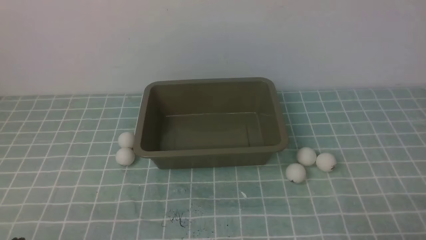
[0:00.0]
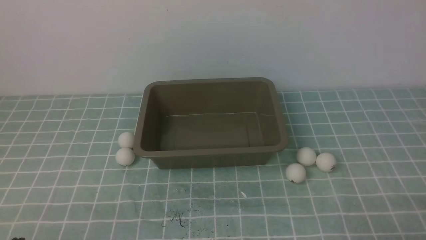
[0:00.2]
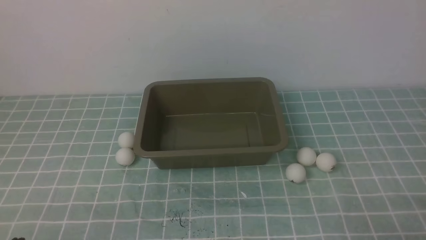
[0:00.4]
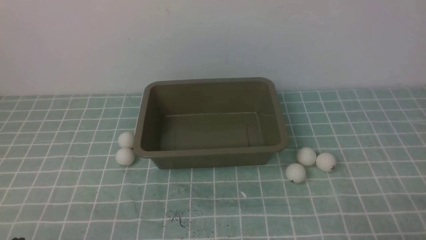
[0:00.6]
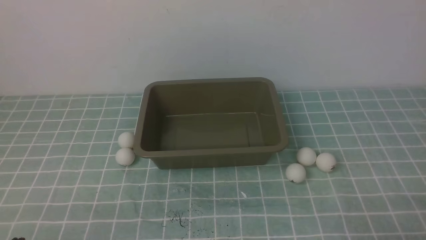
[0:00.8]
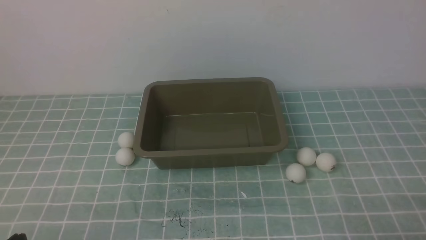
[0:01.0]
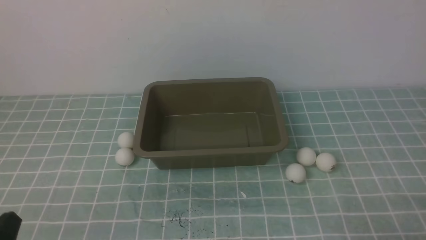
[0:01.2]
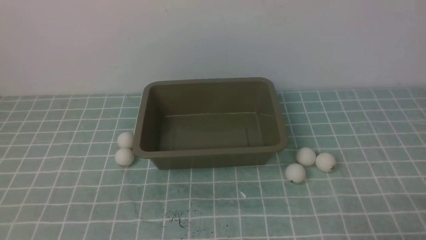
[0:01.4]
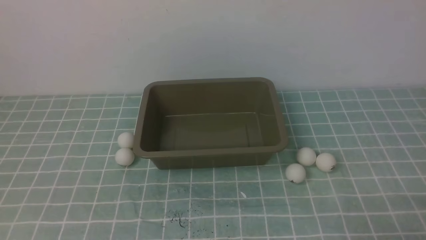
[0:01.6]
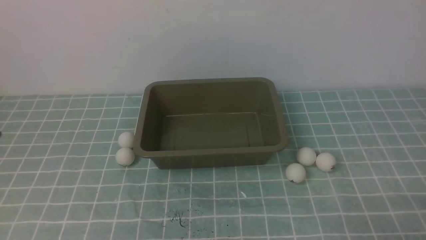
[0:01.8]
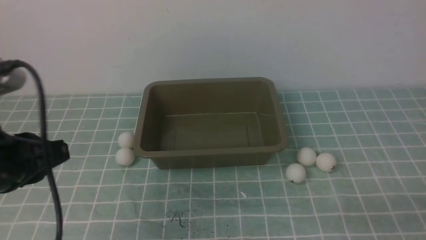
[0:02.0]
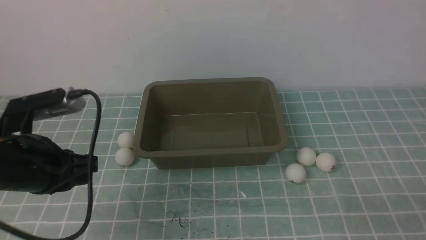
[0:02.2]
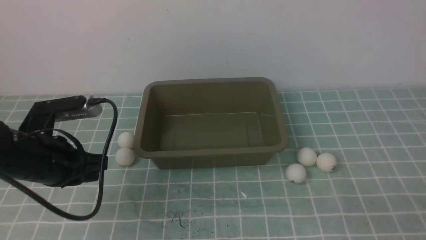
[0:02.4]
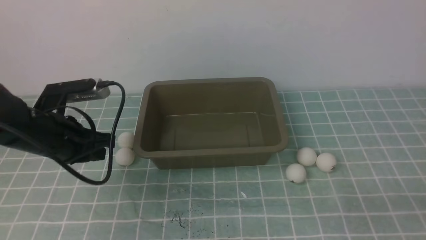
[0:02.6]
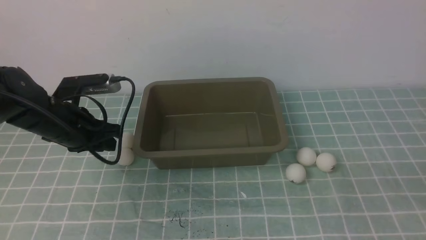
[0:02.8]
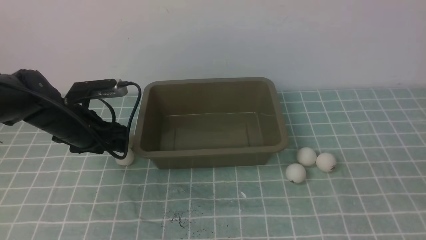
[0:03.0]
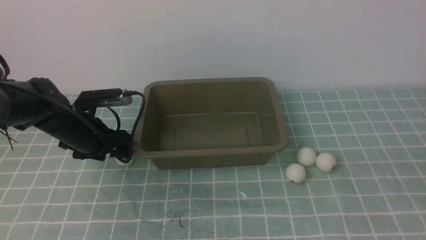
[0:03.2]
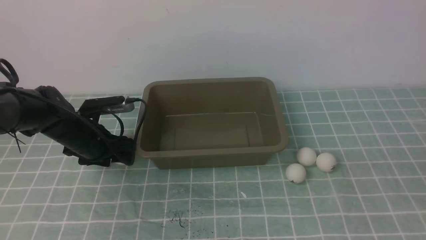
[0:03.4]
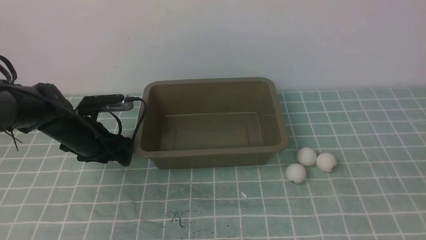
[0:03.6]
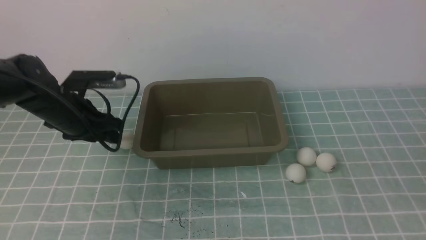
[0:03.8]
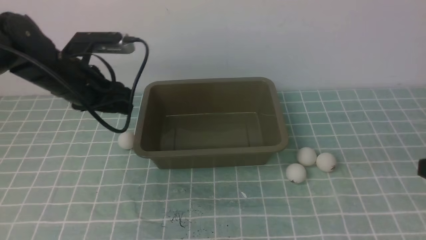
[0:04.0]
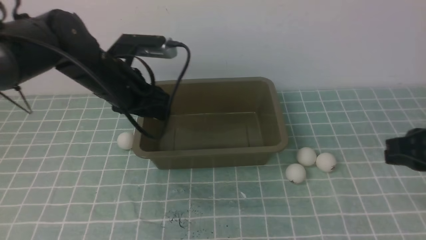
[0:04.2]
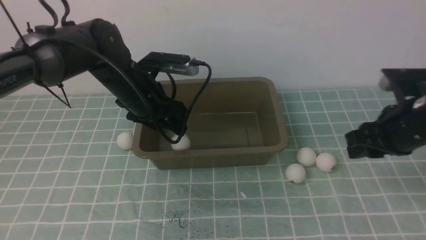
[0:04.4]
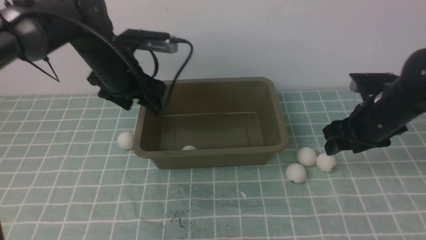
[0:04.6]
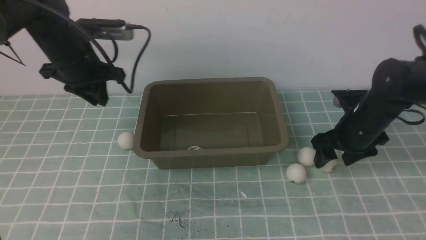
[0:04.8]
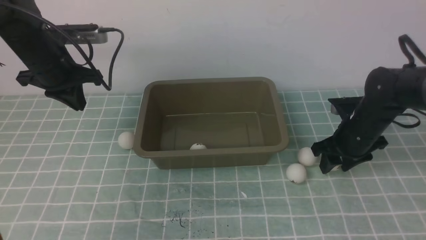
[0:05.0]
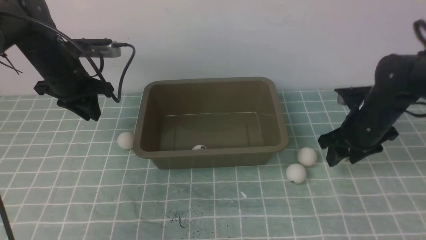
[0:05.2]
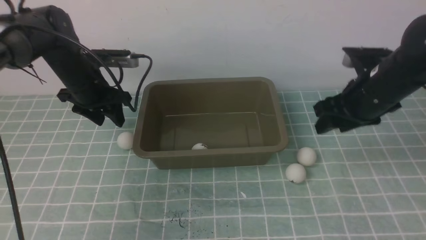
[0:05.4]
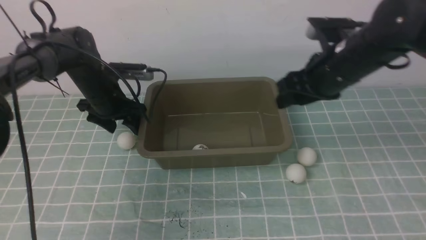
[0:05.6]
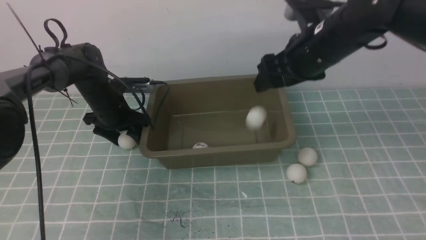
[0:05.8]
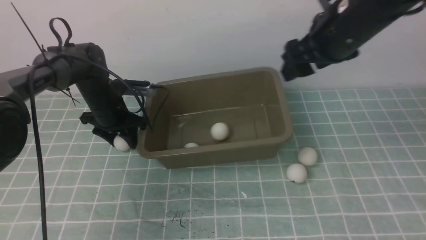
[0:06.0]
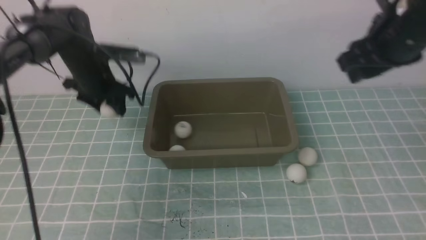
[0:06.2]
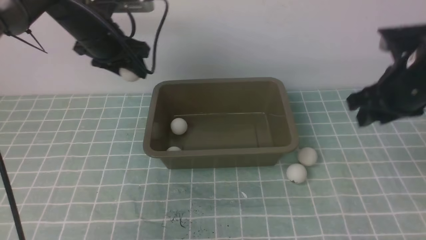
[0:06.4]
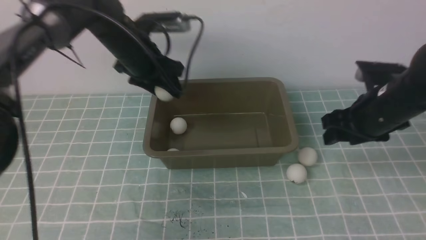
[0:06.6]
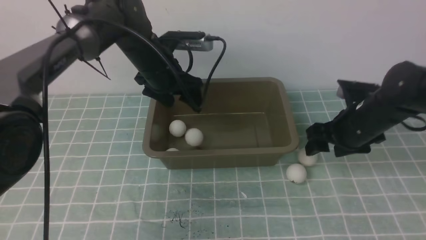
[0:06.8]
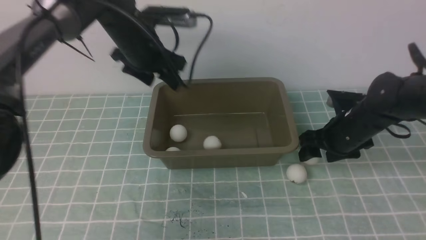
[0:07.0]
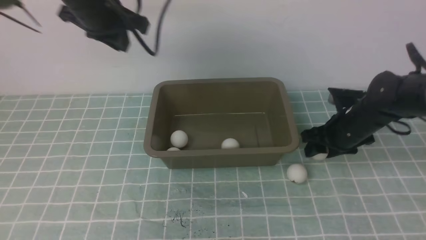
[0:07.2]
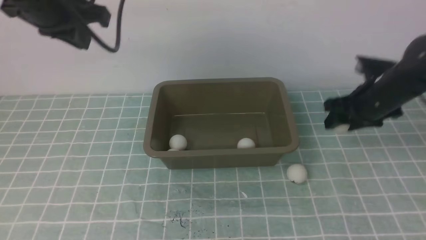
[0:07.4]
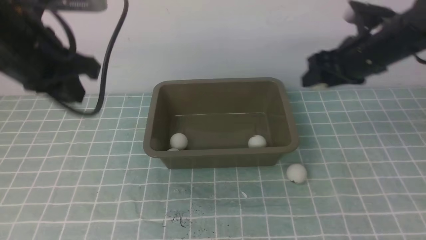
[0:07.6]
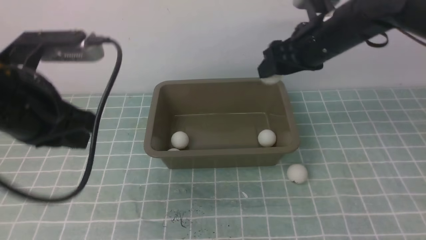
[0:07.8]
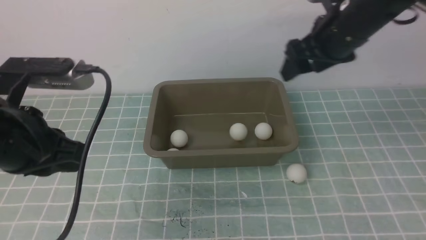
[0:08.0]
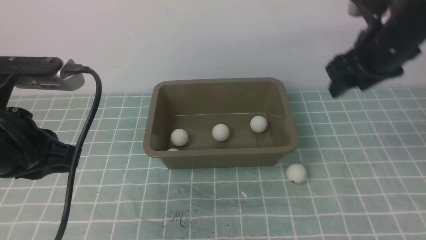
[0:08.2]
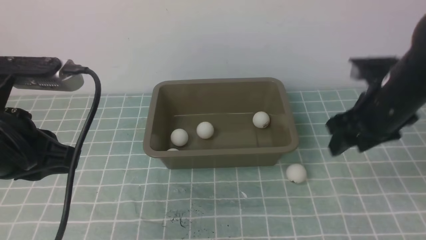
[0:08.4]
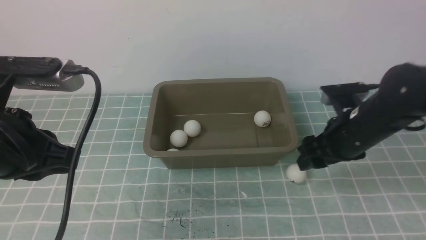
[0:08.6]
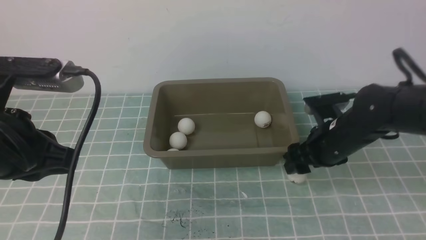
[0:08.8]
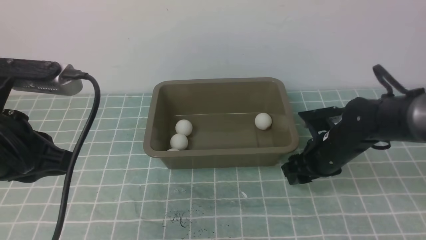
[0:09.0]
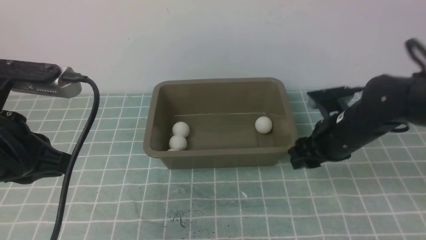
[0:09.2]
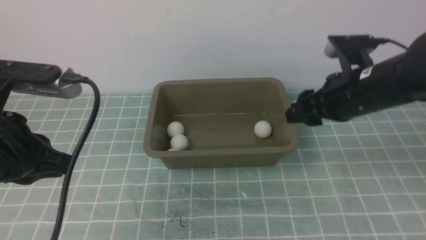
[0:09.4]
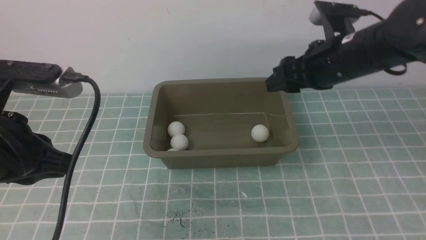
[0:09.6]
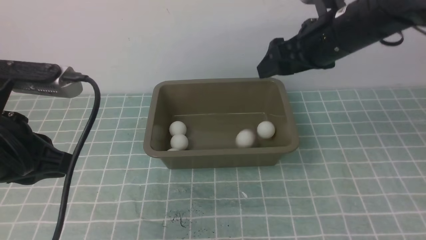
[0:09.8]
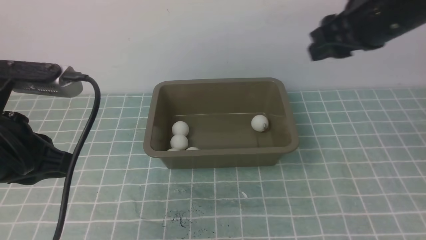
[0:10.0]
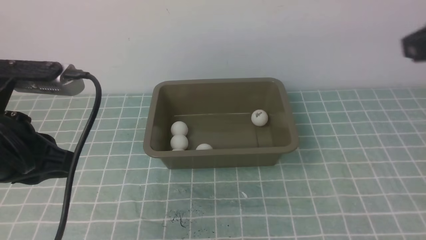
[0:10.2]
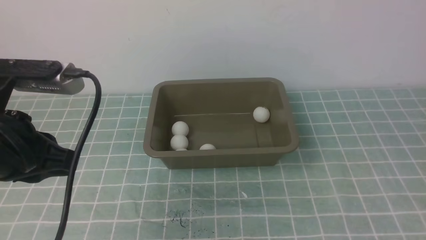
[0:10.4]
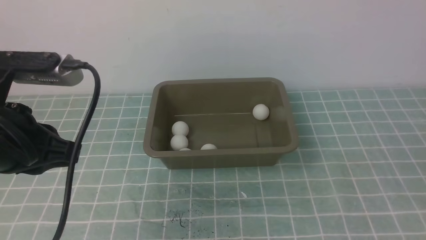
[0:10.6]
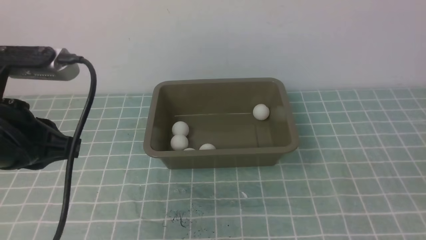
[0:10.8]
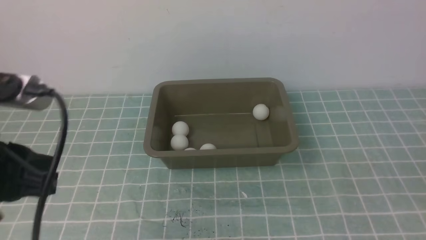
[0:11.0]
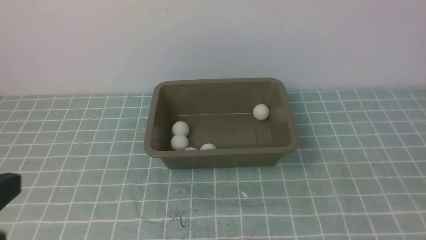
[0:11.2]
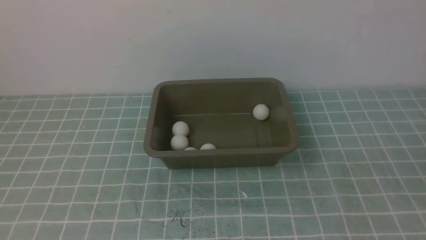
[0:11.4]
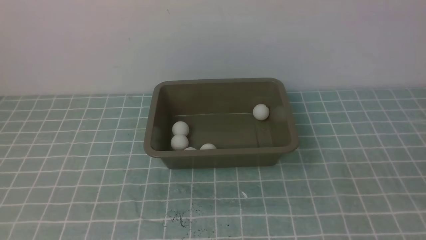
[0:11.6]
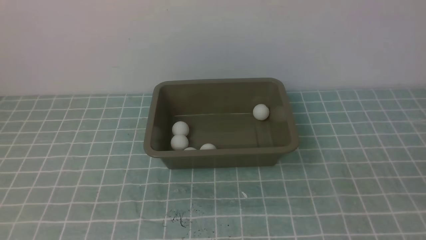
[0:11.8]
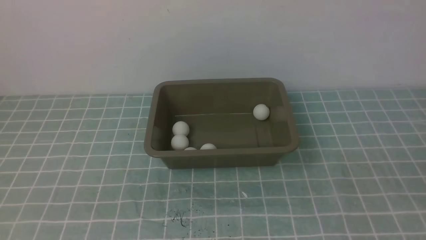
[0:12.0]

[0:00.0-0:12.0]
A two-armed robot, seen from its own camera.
Step, 0:00.0 to 0:03.6: use the left arm to clamp the table tennis ball closest to it.
Step, 0:04.0 to 0:04.4: use the left arm to put the table tennis ball into the box.
Step, 0:04.8 to 0:05.2: use the right arm to clamp the table tennis ball closest to it.
Step, 0:05.4 to 0:05.6: use the right arm to put the table tennis ball into the box.
Step, 0:05.8 to 0:06.4: use the left arm to clamp the table tennis ball closest to it.
Step, 0:07.2 to 0:07.6: use the right arm to clamp the table tennis ball closest to it.
Step, 0:07.8 to 0:08.2: use the right arm to put the table tennis ball into the box.
Step, 0:08.4 to 0:09.2: use the right arm to clamp the table tennis ball closest to it.
Step, 0:09.4 to 0:09.6: use the right arm to put the table tennis ball into the box.
0:01.6 to 0:03.0: The left gripper shifts approximately 30 cm forward, and opens its fingers.
0:03.0 to 0:04.4: The right gripper is displaced forward by about 20 cm, and opens its fingers. The left gripper is displaced to the right and upward by some 10 cm.
0:04.4 to 0:06.0: The left gripper heads downward, to the left and forward, covering about 15 cm, and closes, then reopens; the right gripper moves upward, to the left and forward, some 15 cm, and opens its fingers.
0:06.0 to 0:07.6: The left gripper is displaced upward and backward by about 25 cm, and closes up. Meanwhile the right gripper moves about 20 cm downward and comes back.
0:07.6 to 0:09.0: The right gripper heads downward and backward, covering some 15 cm. The left gripper goes about 10 cm backward.
0:09.0 to 0:10.4: The right gripper shifts roughly 35 cm backward, upward and to the right, and closes its fingers.
0:10.4 to 0:12.0: The left gripper travels backward by roughly 15 cm; the right gripper moves downward, about 10 cm.

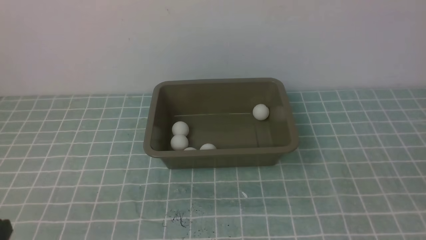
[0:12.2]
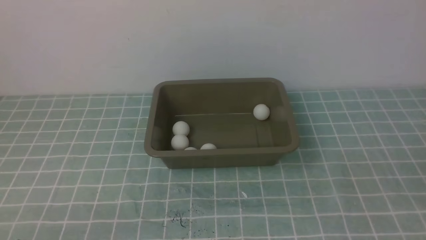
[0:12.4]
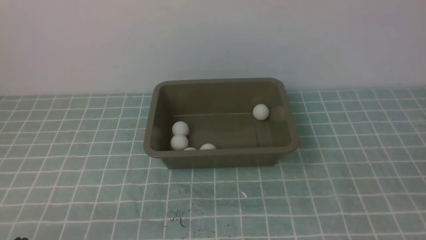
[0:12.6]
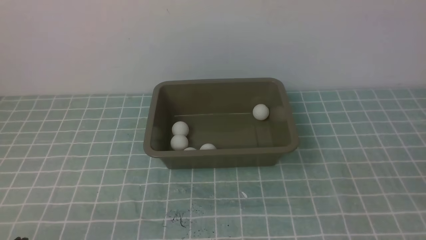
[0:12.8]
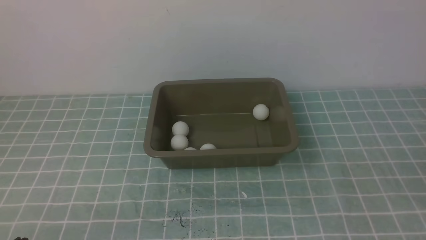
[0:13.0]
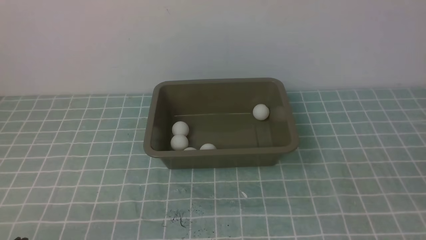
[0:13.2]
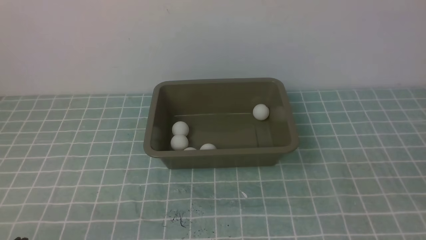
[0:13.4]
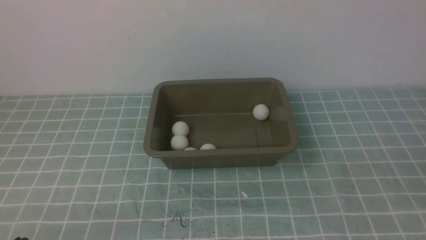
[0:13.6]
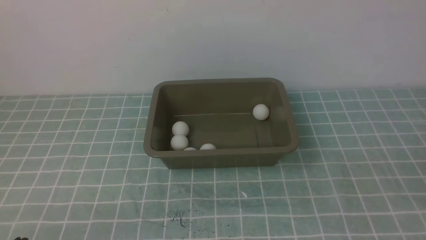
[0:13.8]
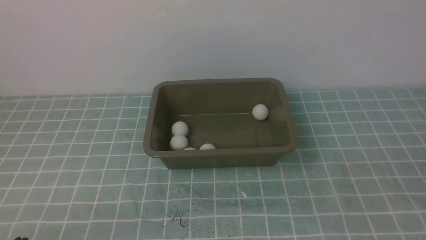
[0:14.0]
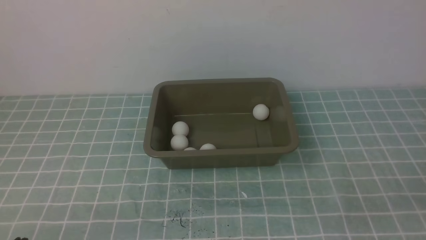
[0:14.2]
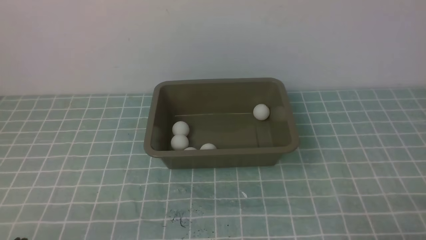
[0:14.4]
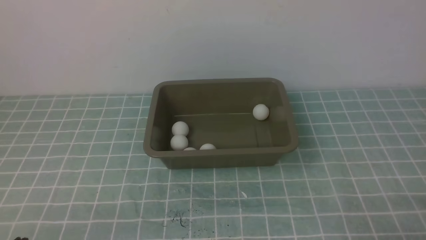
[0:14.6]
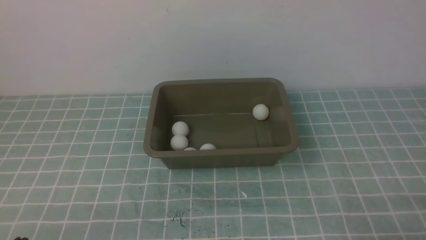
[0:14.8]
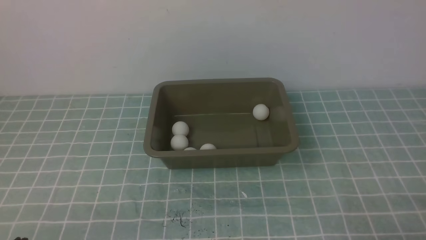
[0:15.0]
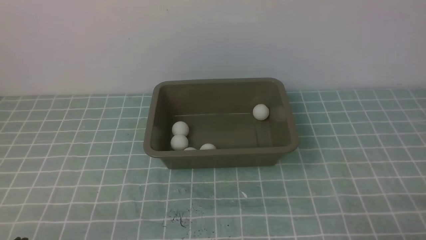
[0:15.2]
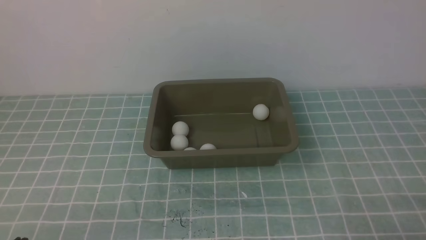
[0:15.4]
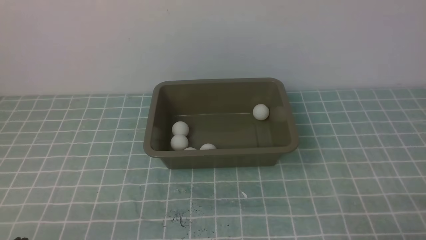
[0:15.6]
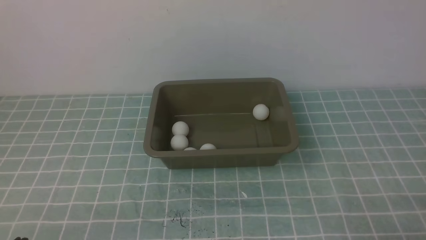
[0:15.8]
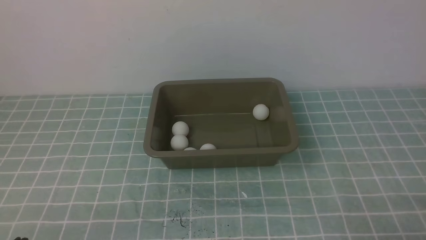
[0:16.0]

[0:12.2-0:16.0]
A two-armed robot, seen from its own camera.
0:14.8 to 0:16.0: The two grippers keep their place.
